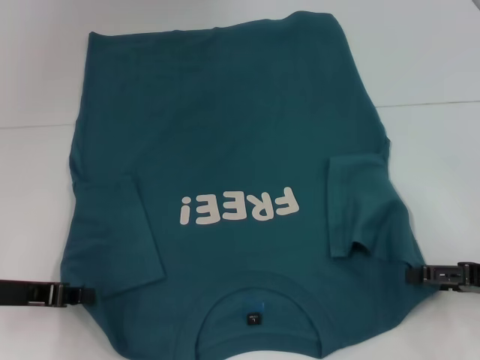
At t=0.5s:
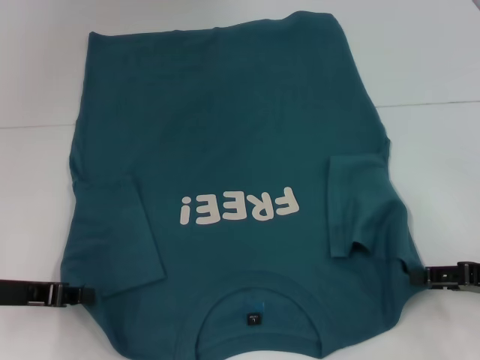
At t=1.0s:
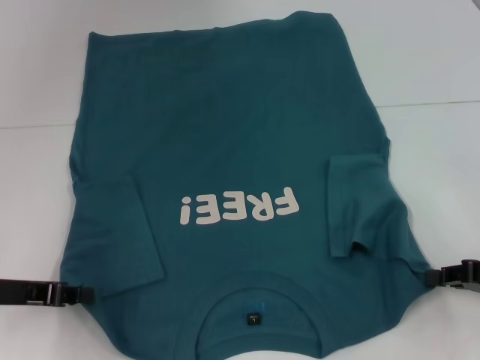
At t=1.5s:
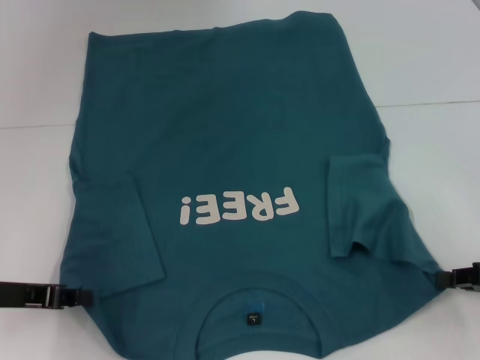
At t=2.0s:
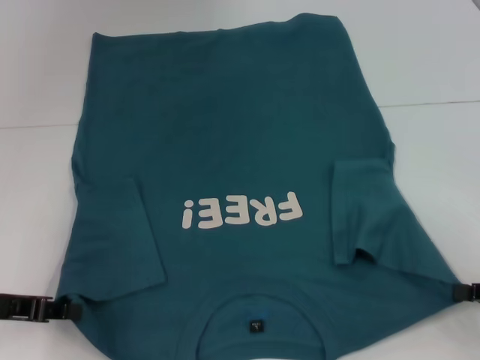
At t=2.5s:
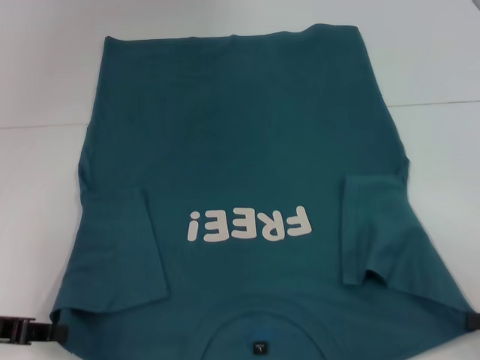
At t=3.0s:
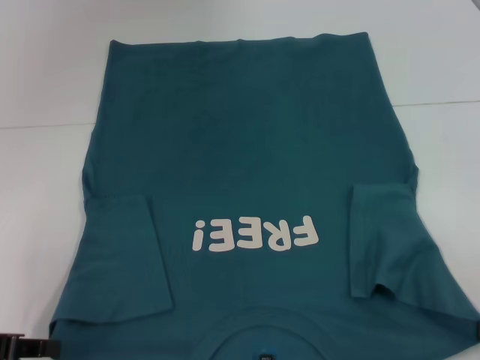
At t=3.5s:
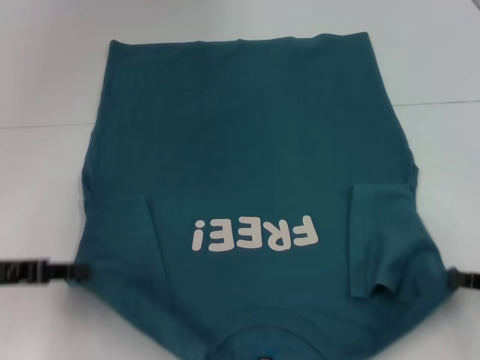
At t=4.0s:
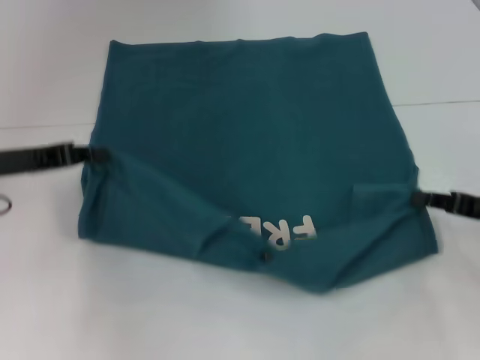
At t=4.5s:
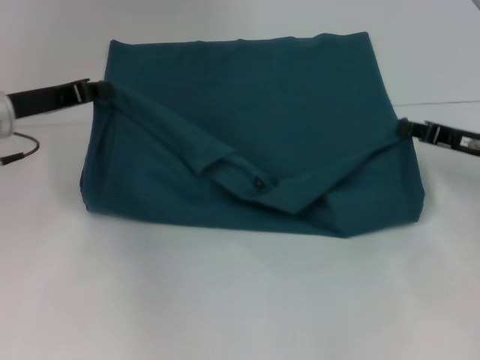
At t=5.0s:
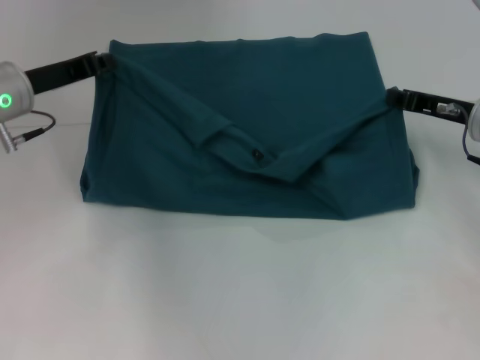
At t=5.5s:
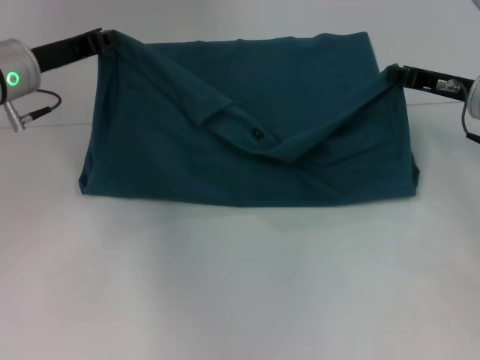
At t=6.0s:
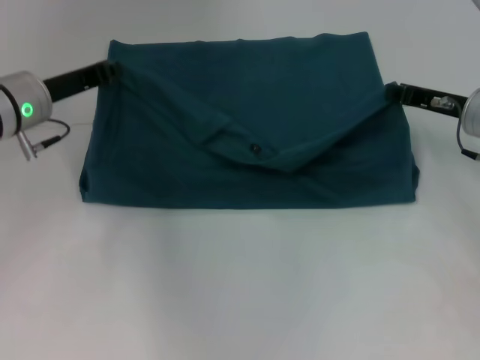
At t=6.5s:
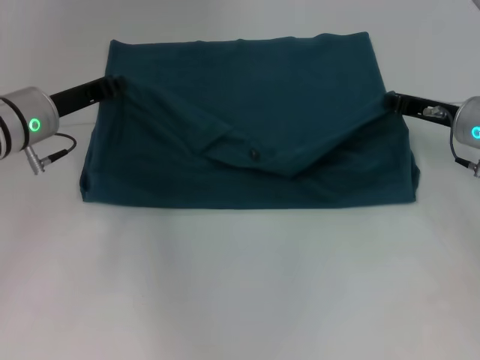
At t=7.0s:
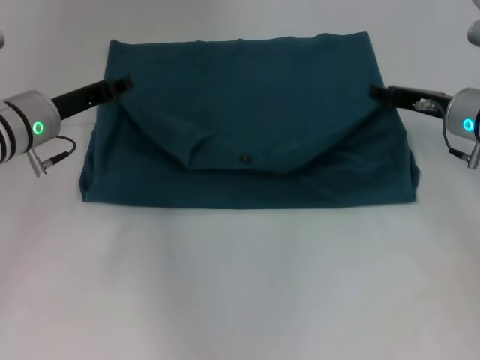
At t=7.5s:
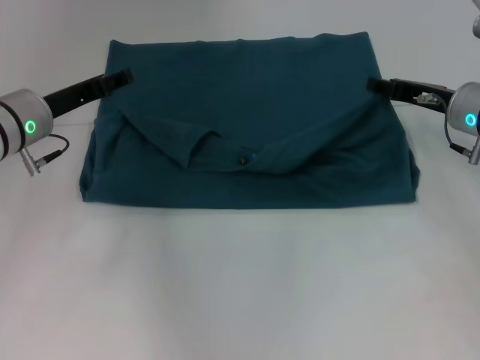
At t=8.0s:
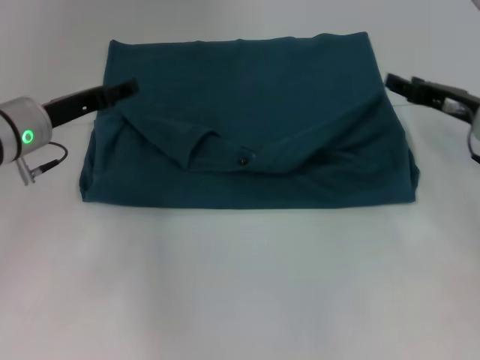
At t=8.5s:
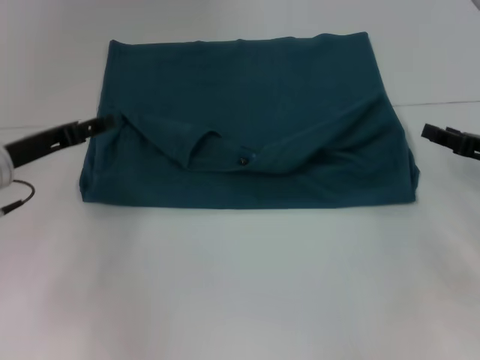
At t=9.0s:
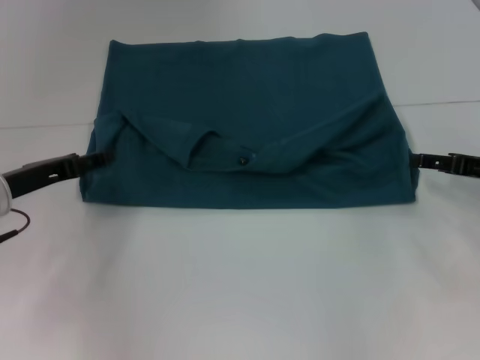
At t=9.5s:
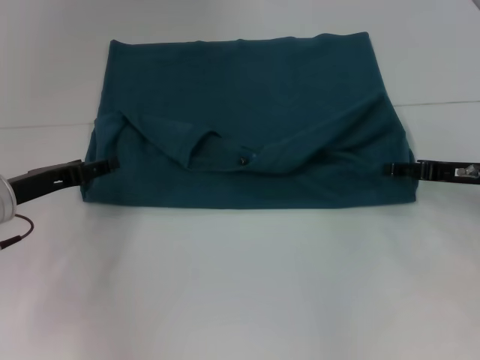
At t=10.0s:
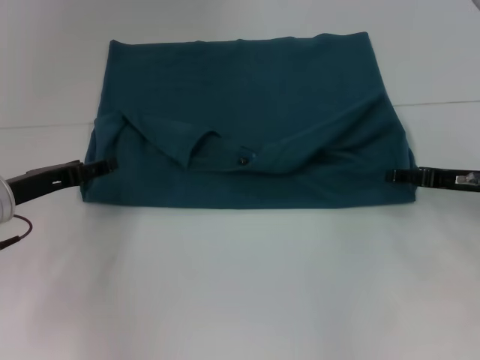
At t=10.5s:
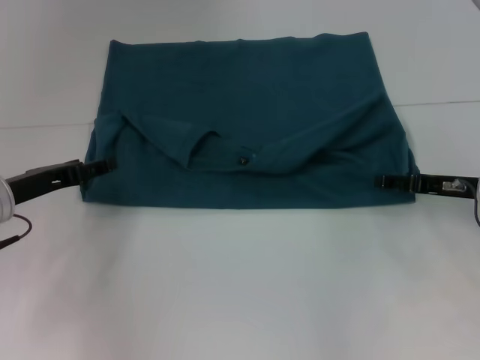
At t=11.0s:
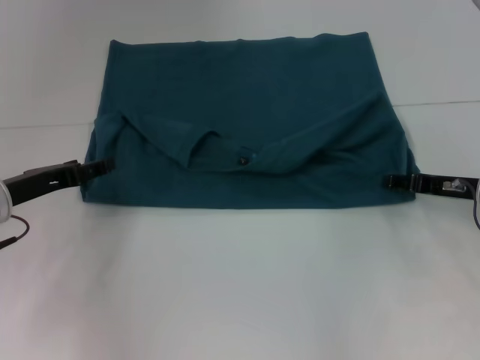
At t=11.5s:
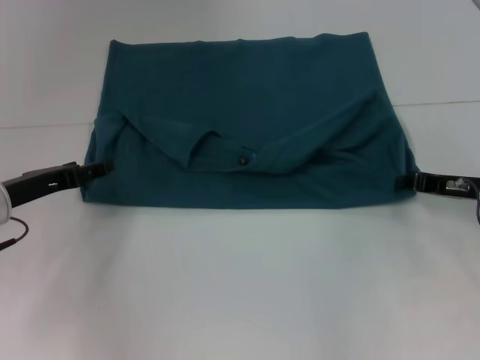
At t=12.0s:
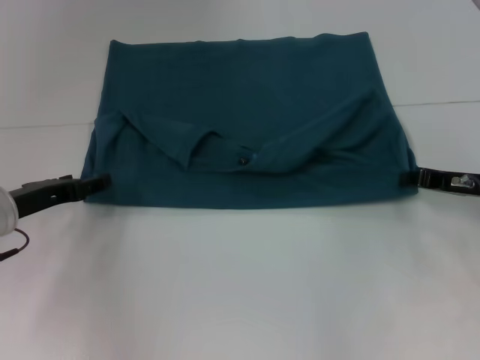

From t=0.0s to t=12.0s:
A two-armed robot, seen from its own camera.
Step, from t=1.5s to t=8.0s: Fold the clothes to the left.
Step, from t=1.5s to t=8.0s: Fold the clothes to the right.
From t=0.0s to t=2.0s: The right gripper closes up.
From t=2.0s to t=4.0s: The grippers both shift forward by some 10 cm.
From t=4.0s to t=6.0s: The left gripper travels forward and to the right by approximately 10 cm. Meanwhile the right gripper moves forward and to the left, roughly 15 cm.
From t=6.0s to t=8.0s: The left gripper opens up. The right gripper opens.
From t=8.0s to t=10.0s: The left gripper goes some 5 cm backward.
From t=10.0s to t=12.0s: The right gripper closes up.

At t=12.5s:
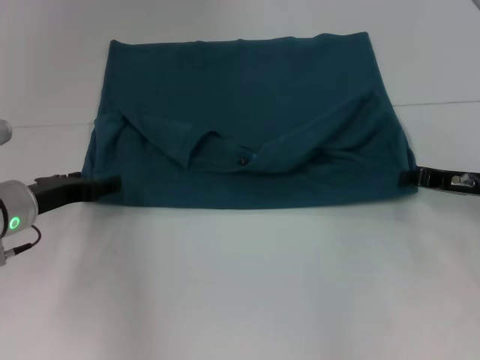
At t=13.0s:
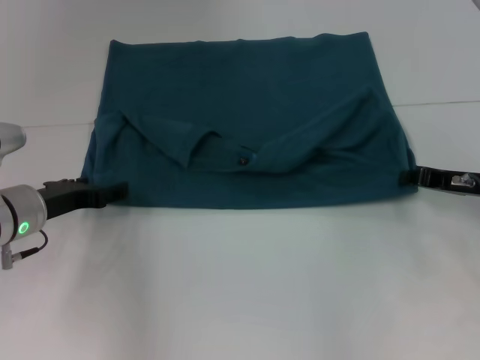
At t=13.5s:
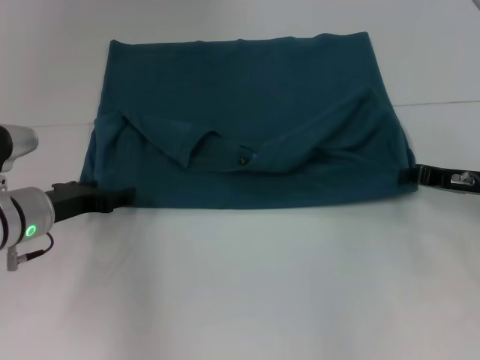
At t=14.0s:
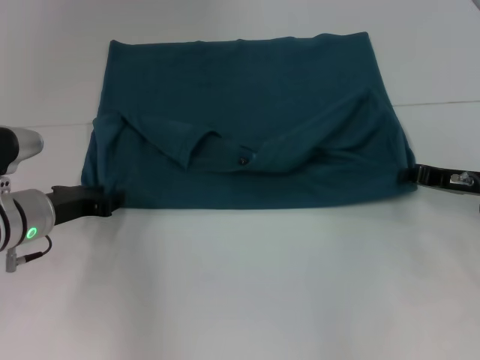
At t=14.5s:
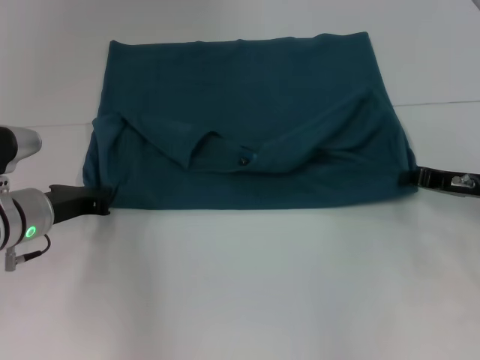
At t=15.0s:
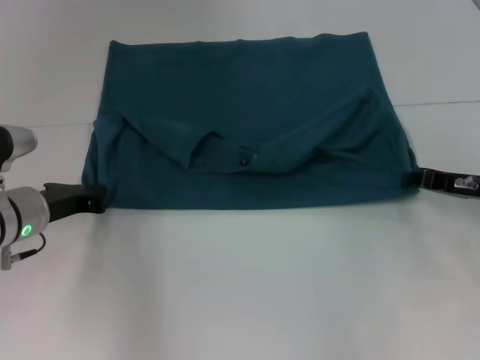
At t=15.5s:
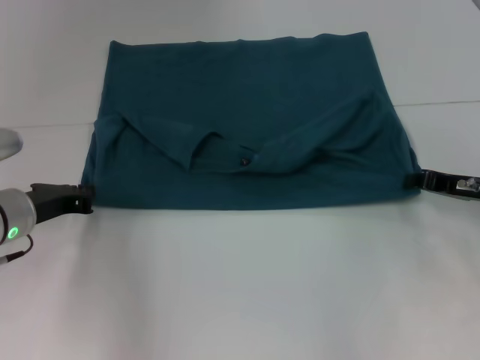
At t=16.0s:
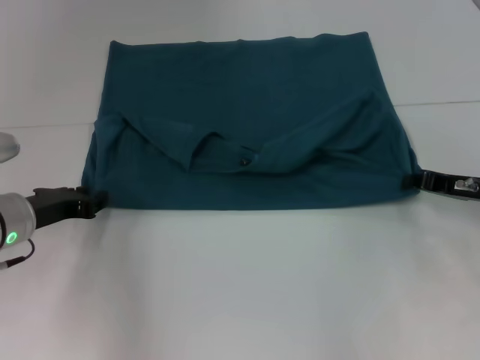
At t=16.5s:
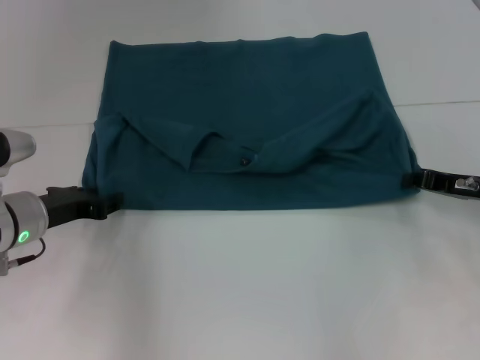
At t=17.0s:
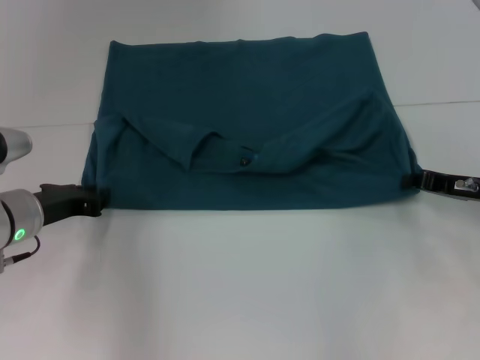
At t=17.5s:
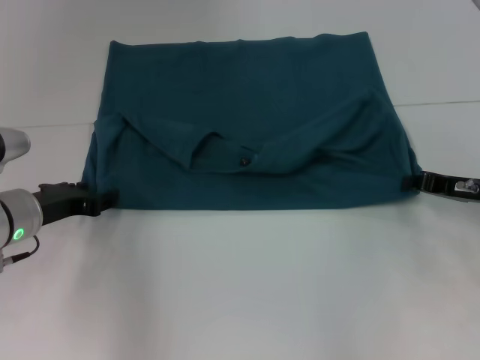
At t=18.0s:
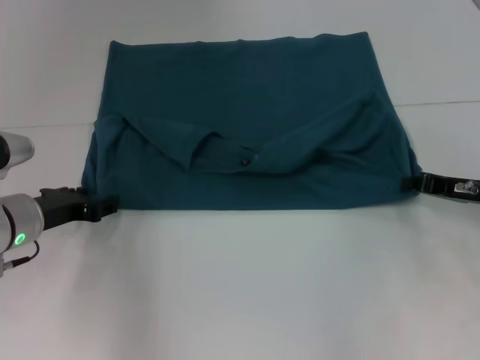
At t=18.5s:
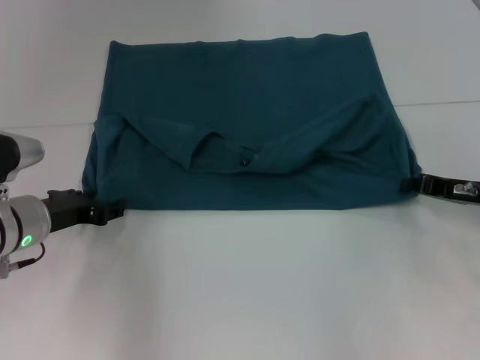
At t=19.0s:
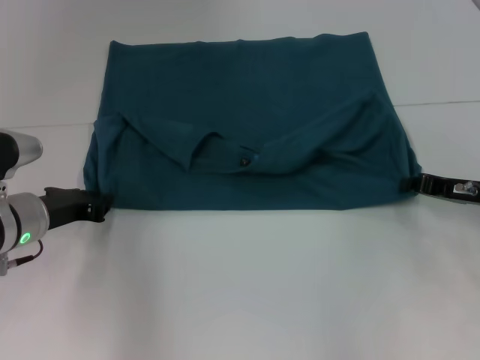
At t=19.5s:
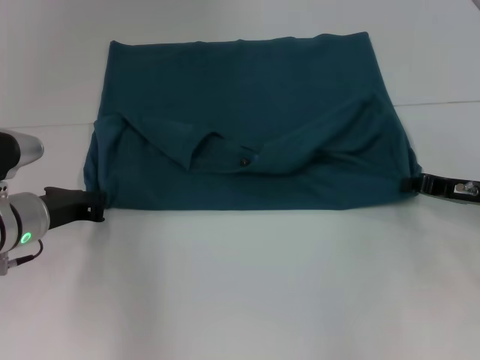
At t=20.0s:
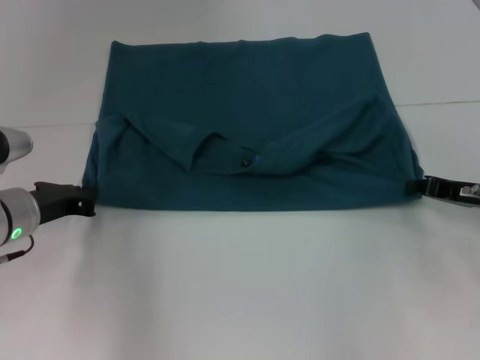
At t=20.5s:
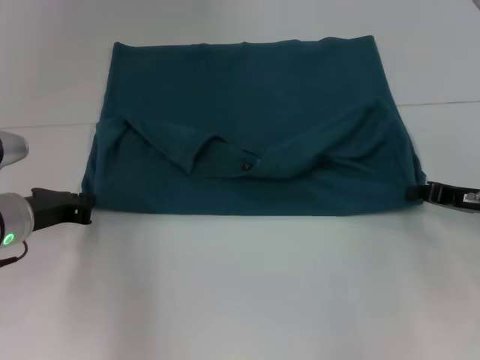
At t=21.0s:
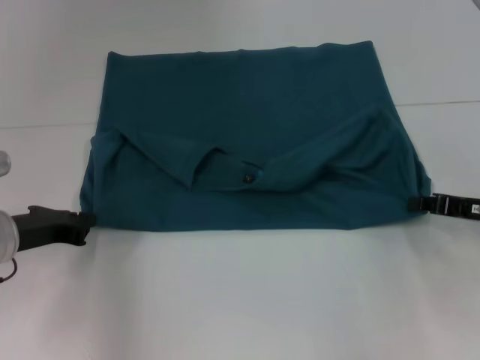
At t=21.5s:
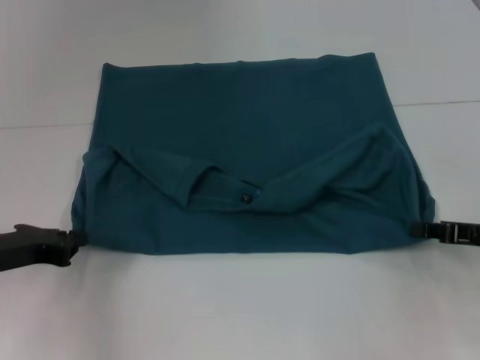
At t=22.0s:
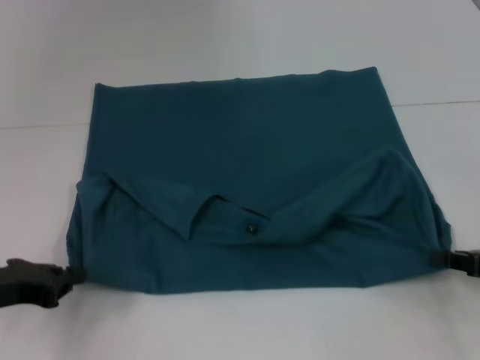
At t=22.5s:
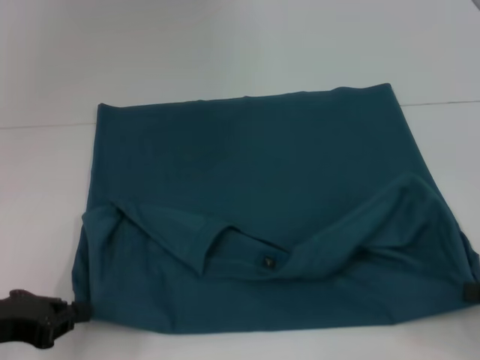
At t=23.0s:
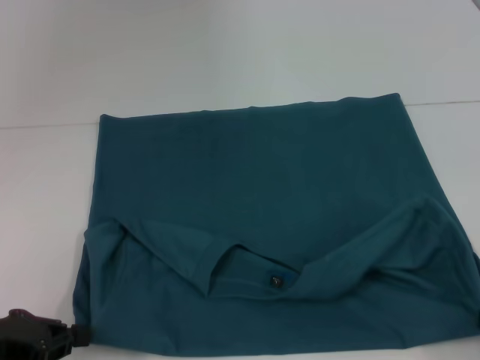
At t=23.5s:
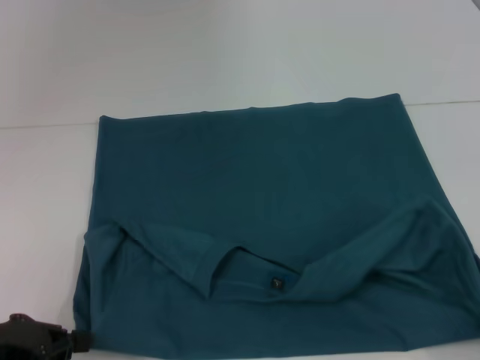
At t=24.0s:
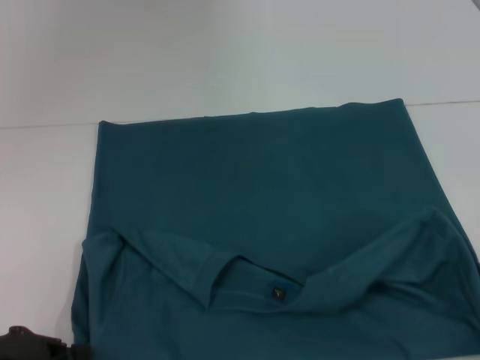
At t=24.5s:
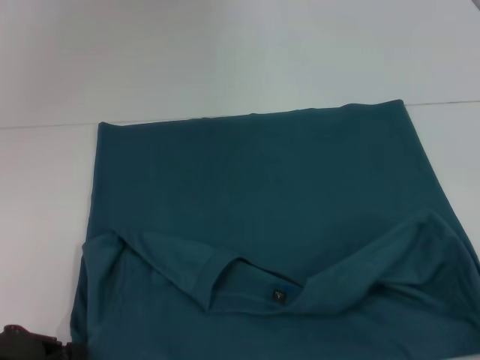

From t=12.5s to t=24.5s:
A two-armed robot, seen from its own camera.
Step, from t=12.5s to t=22.5s: Pull the clothes with your left hand.
Step, from t=12.5s to t=22.5s: Pull the clothes with your right hand.
From t=12.5s to t=14.5s: The left gripper closes up.
From t=14.5s to t=16.5s: The left gripper opens its fingers.
From t=16.5s to t=18.5s: The two grippers keep their place.
From t=18.5s to t=20.5s: The left gripper closes its fingers.
From t=20.5s to t=22.5s: The left gripper heads backward and to the left, covering roughly 15 cm, while the right gripper is displaced backward and to the right by some 15 cm.
From t=22.5s to t=24.5s: The grippers make only small movements.

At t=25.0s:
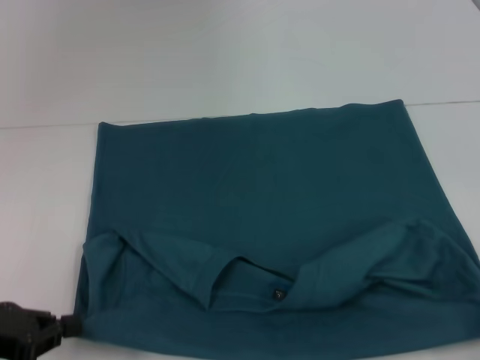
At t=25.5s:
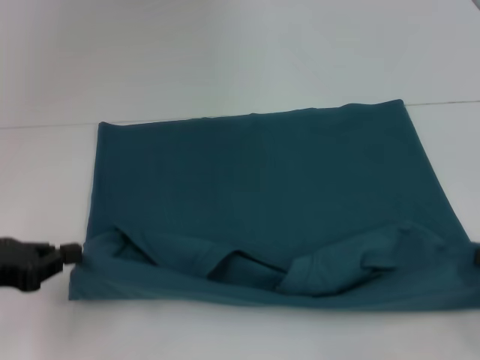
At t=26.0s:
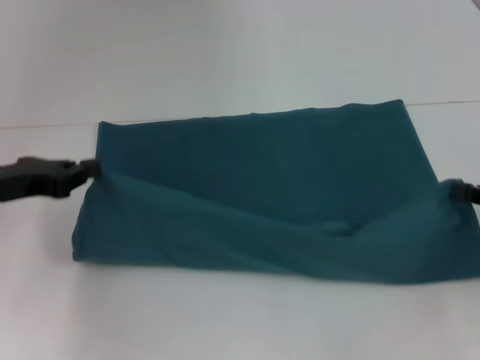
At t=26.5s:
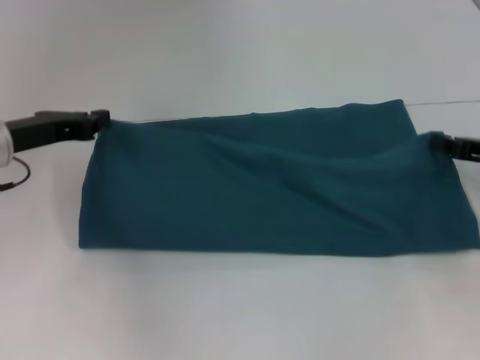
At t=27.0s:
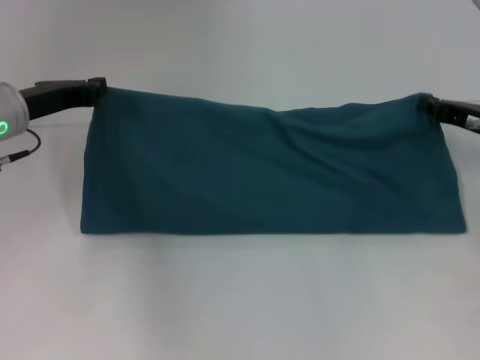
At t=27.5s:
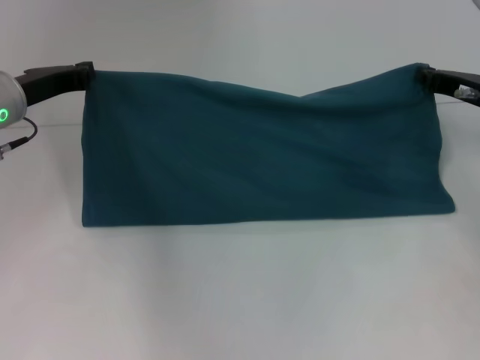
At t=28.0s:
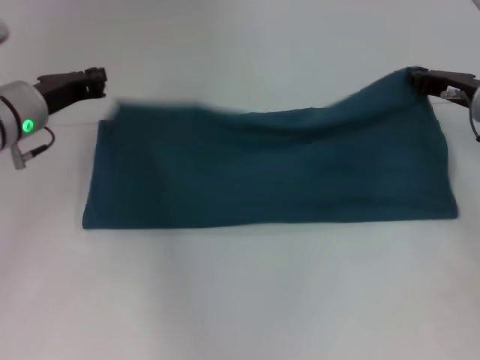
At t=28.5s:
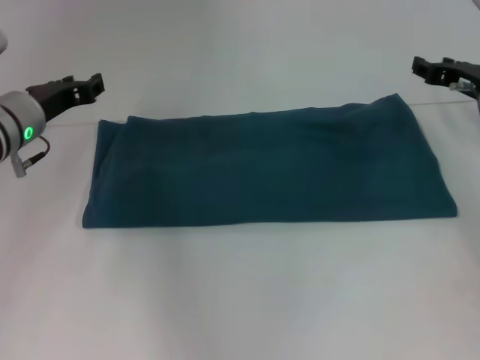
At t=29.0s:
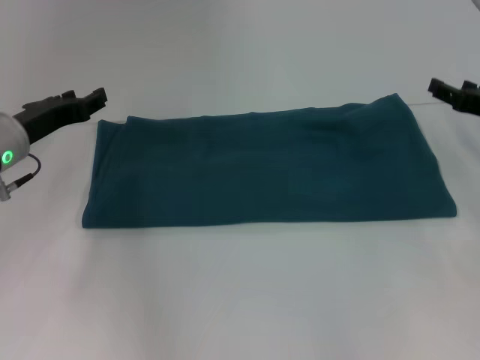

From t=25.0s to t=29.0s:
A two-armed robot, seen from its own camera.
Step, from t=25.0s to t=28.5s: Fold the clothes to the left.
Step, from t=25.0s to t=28.5s: Fold the clothes to the right.
From t=25.0s to t=27.0s: Both grippers travel together forward, about 20 cm.
From t=27.0s to t=29.0s: The right gripper opens its fingers. Meanwhile the left gripper opens its fingers.
